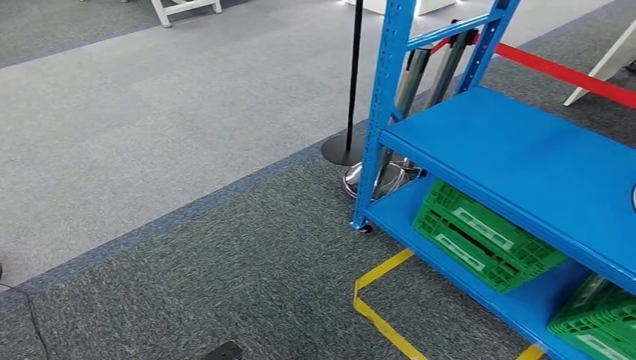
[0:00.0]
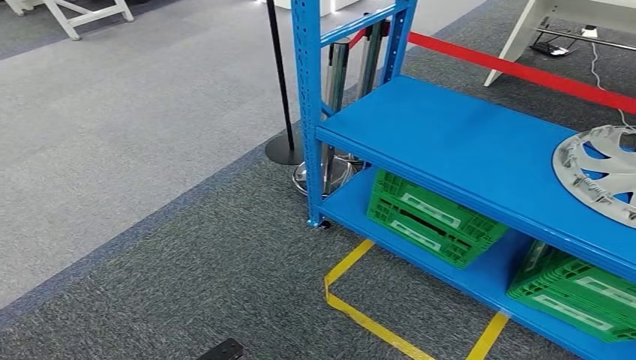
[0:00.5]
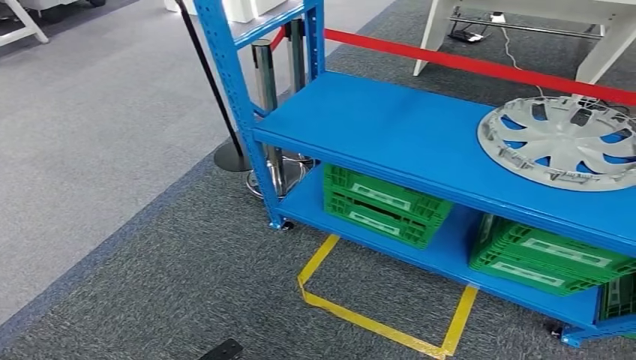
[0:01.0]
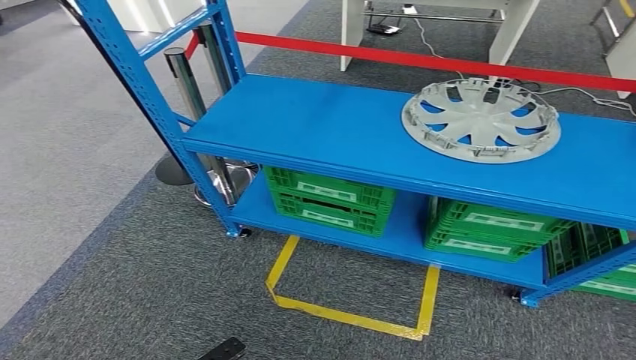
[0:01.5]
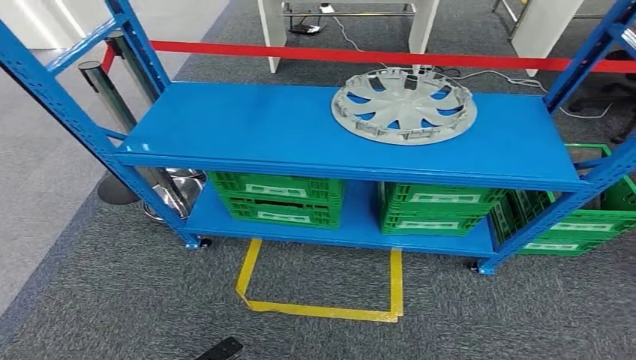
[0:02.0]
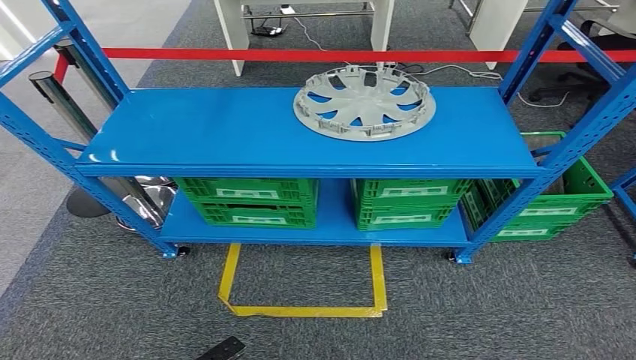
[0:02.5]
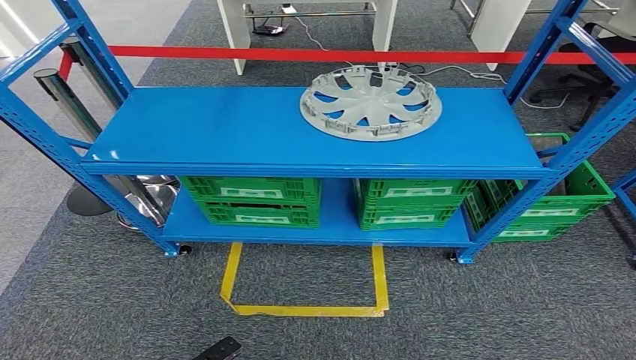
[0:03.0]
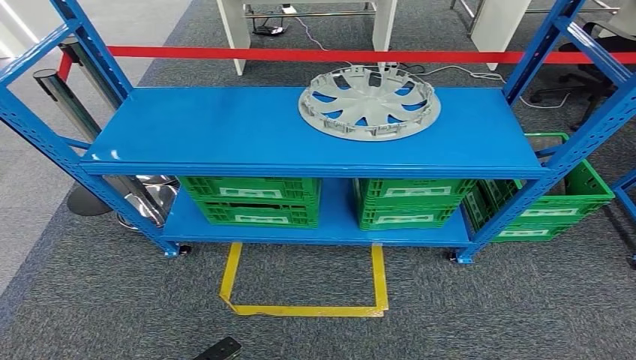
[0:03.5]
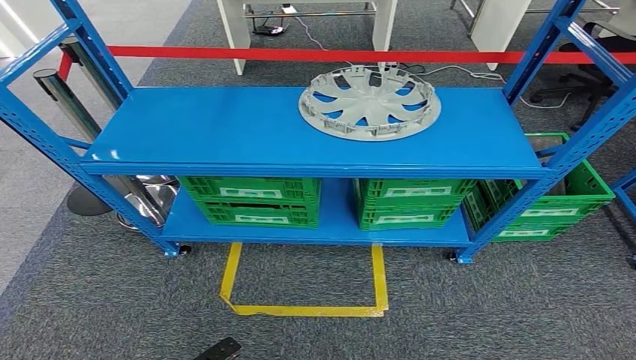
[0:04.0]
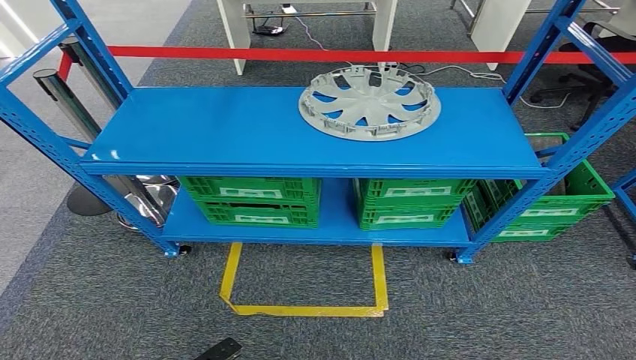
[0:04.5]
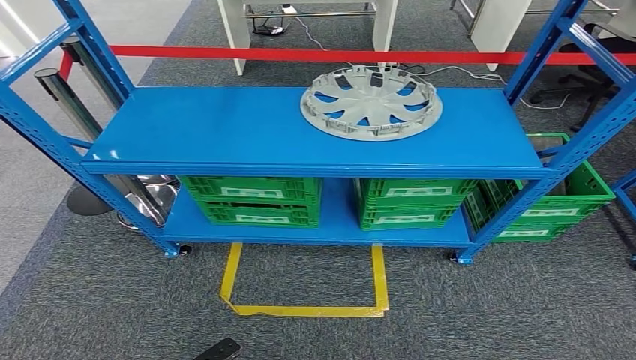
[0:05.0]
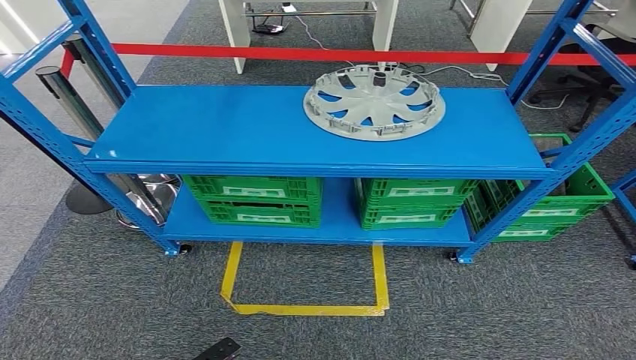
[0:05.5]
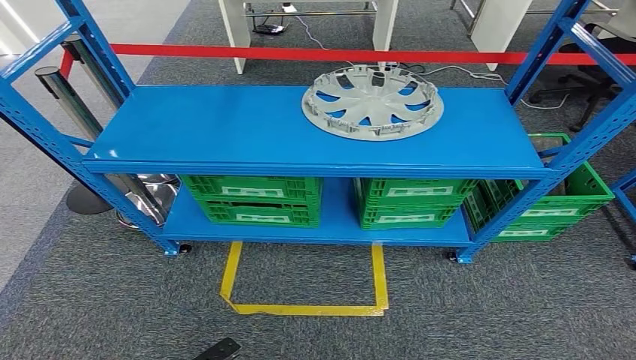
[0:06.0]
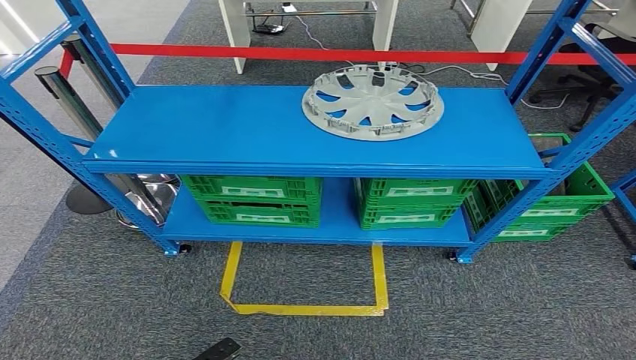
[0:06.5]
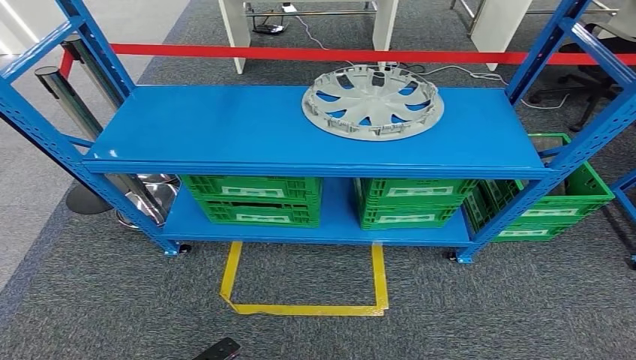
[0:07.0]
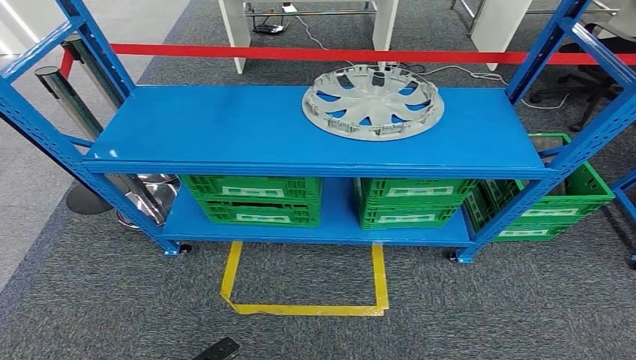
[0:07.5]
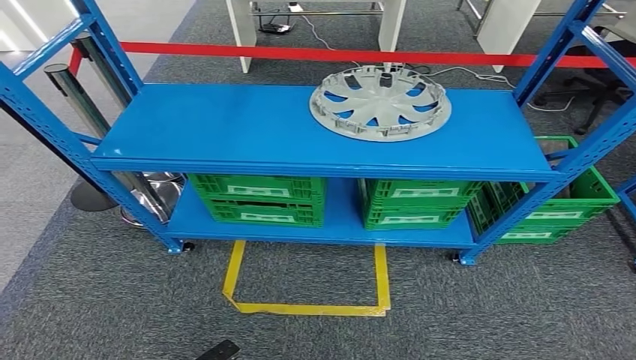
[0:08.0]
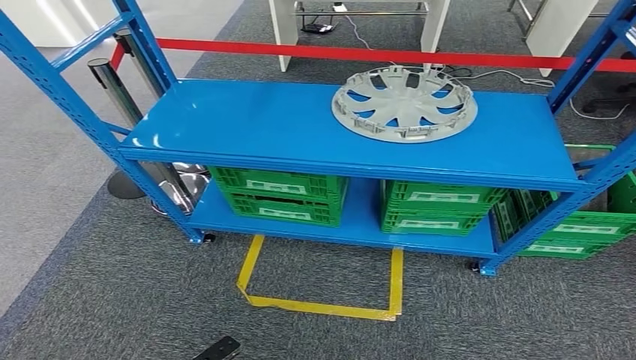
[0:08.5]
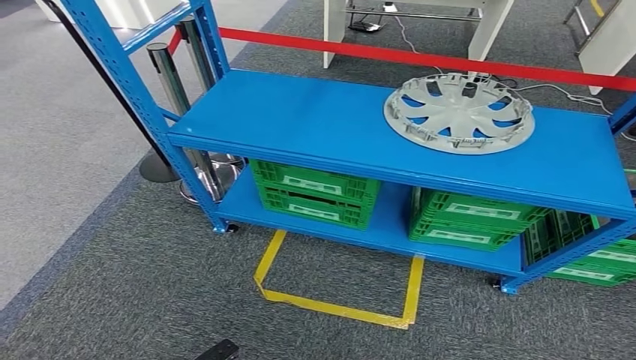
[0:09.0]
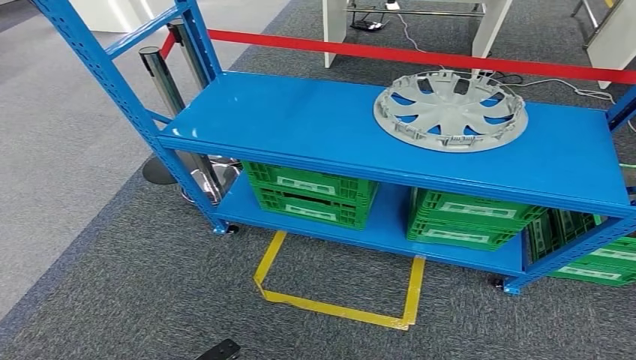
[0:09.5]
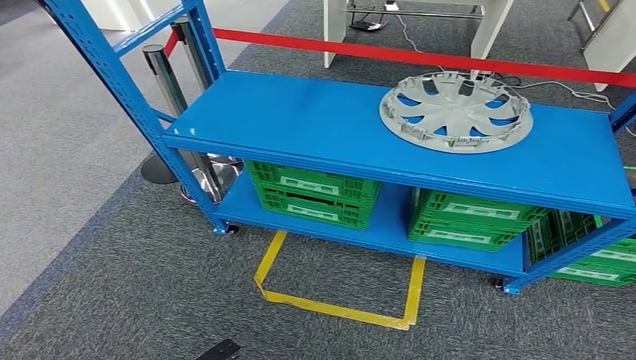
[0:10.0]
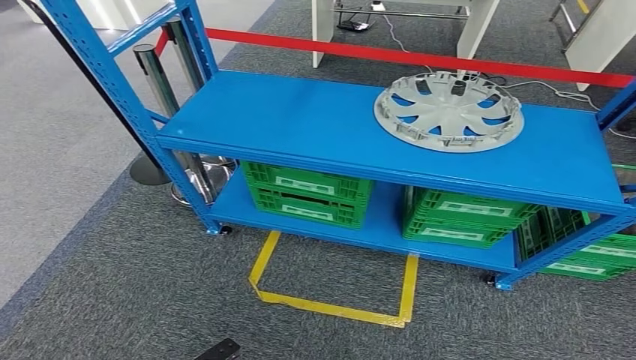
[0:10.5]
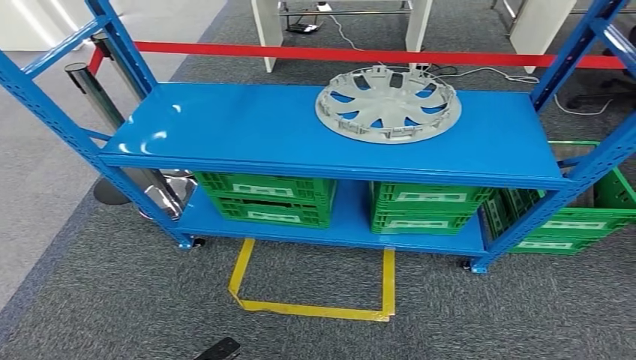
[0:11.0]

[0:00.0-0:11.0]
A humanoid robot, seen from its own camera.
Step, 0:00.0 to 0:11.0: Return to the initial position at the workbench.
0:03.5 to 0:07.5: Both hands stay put.

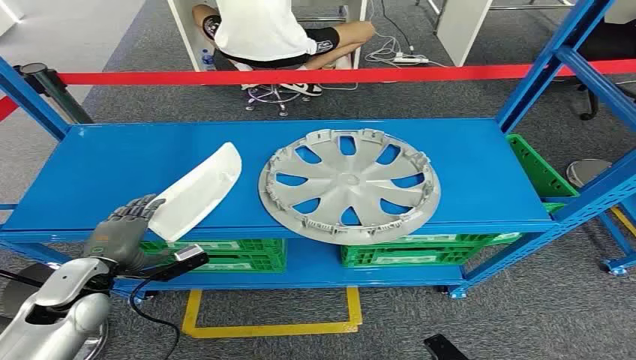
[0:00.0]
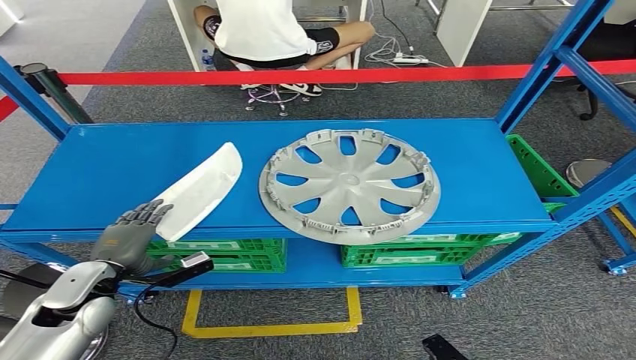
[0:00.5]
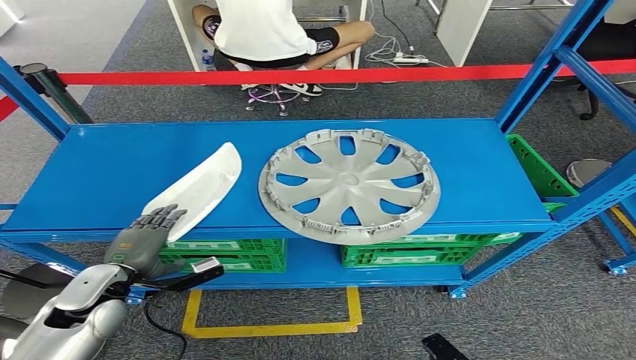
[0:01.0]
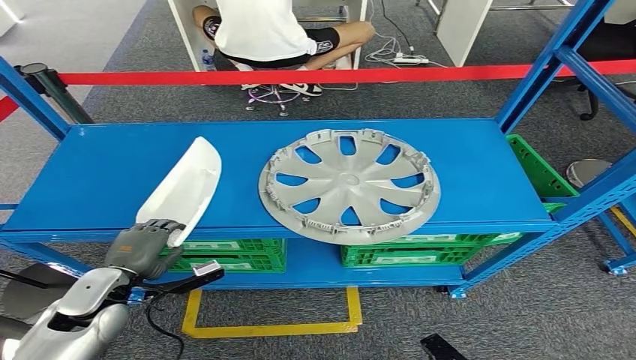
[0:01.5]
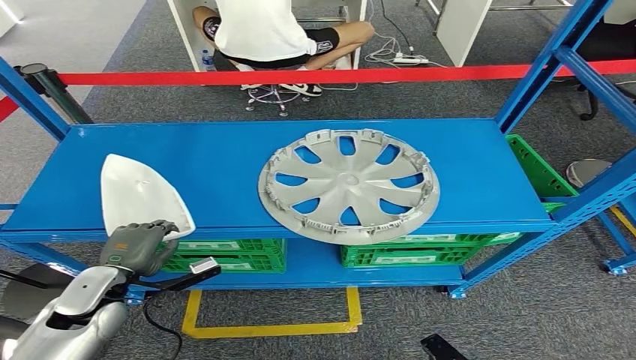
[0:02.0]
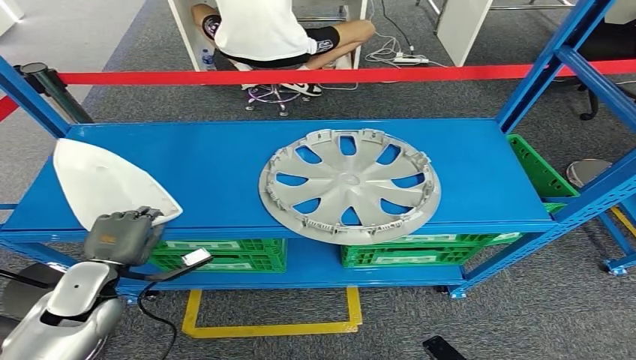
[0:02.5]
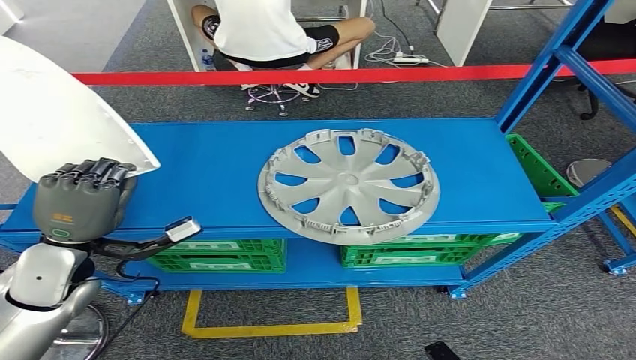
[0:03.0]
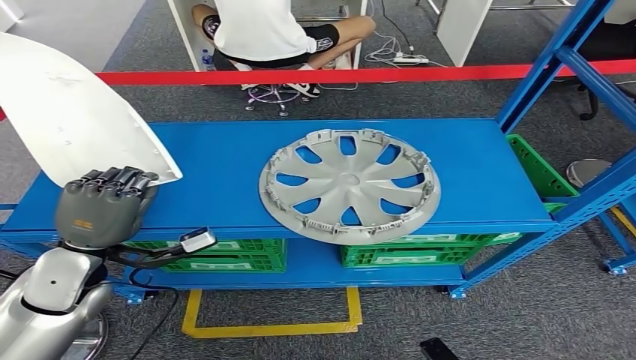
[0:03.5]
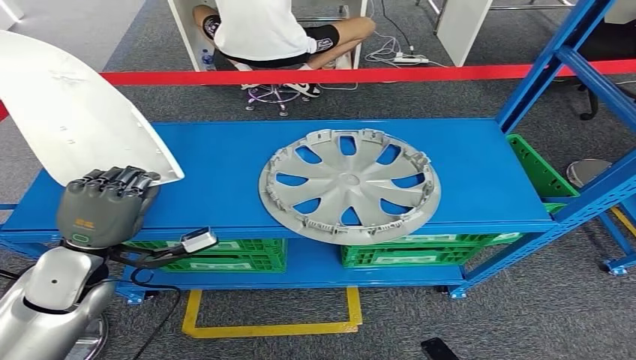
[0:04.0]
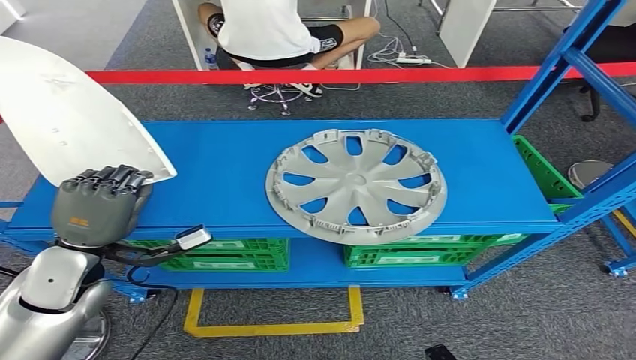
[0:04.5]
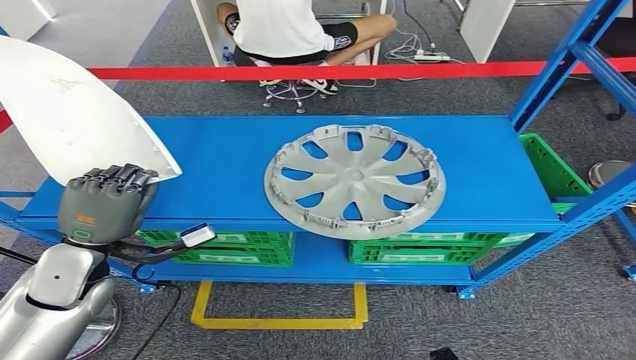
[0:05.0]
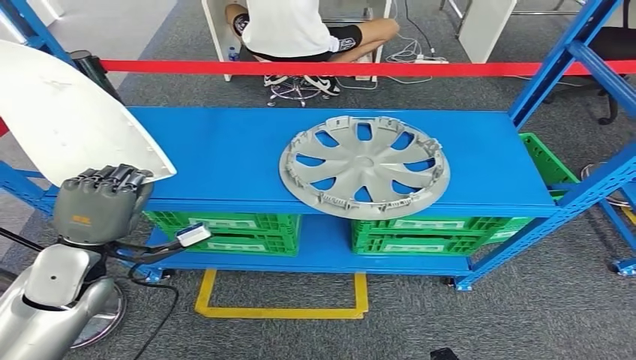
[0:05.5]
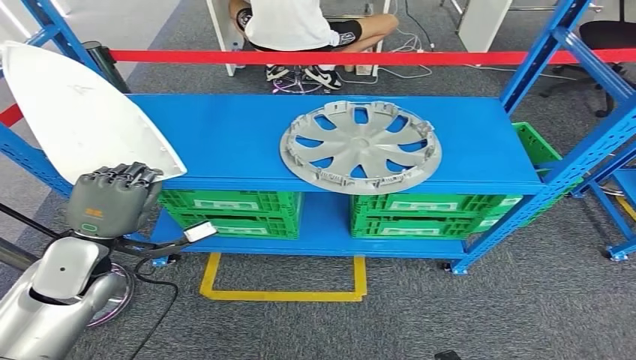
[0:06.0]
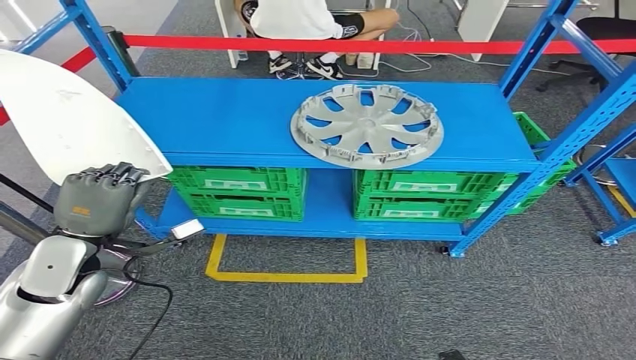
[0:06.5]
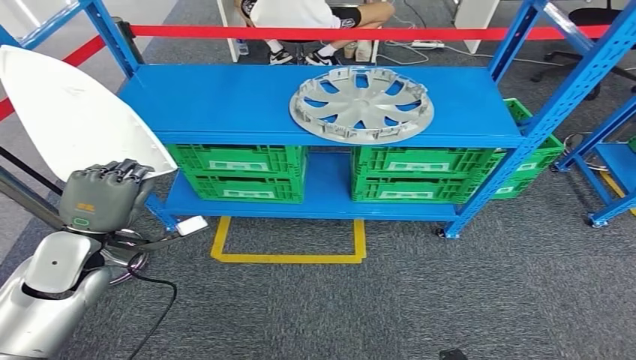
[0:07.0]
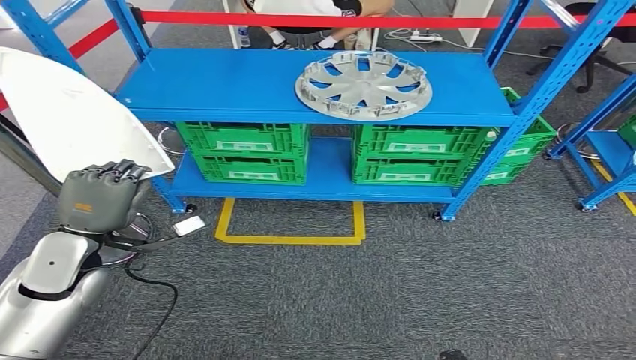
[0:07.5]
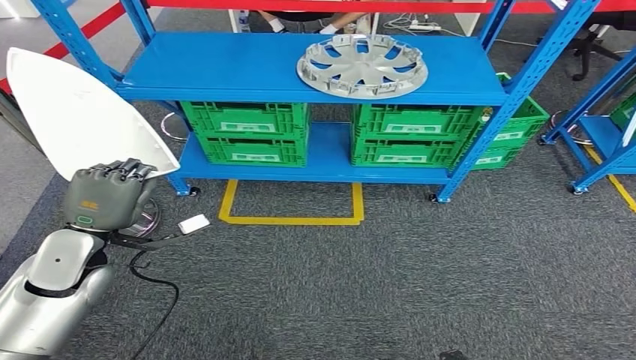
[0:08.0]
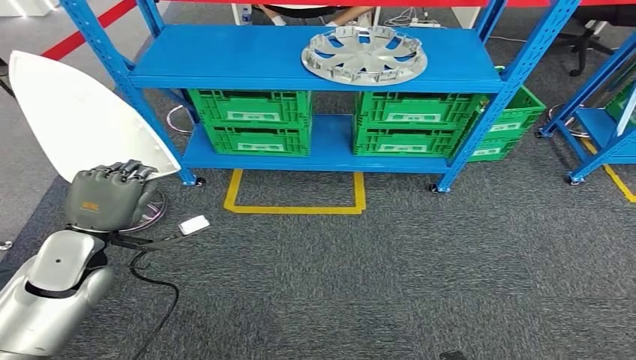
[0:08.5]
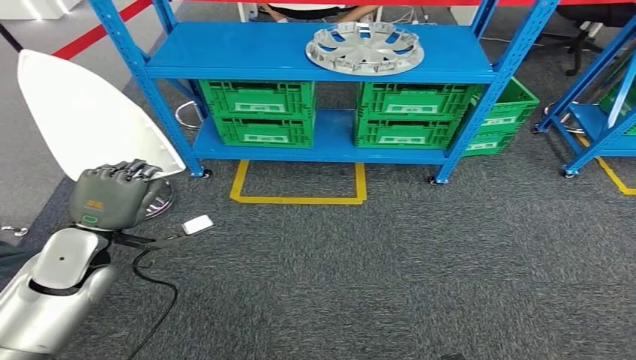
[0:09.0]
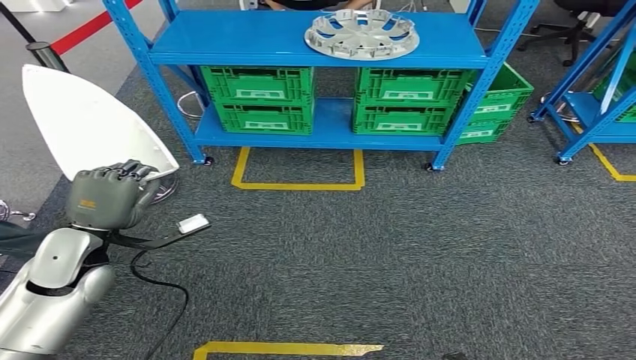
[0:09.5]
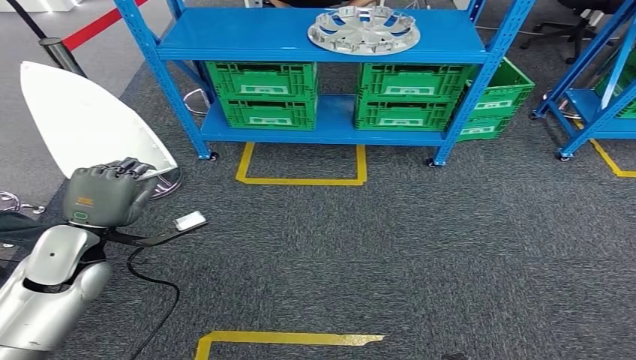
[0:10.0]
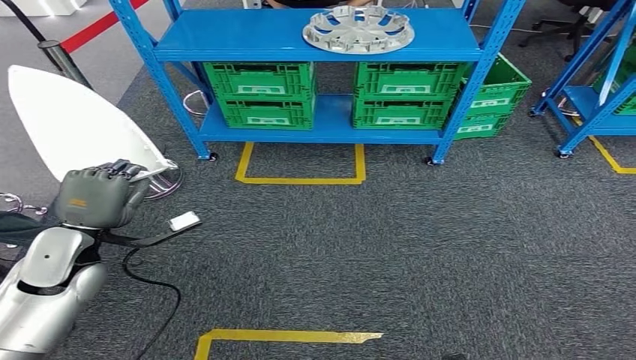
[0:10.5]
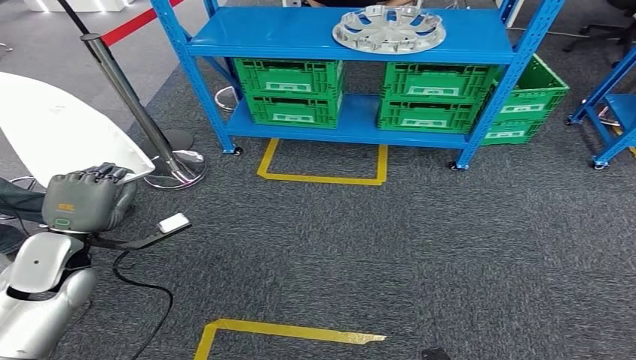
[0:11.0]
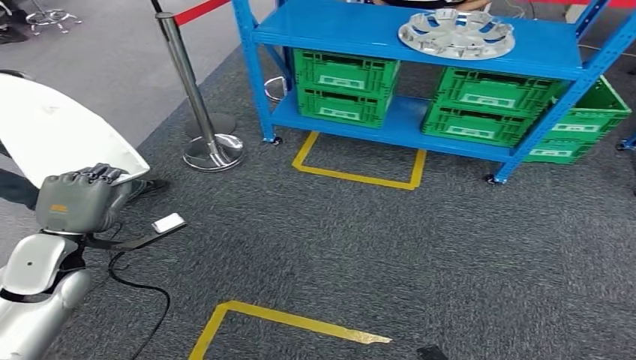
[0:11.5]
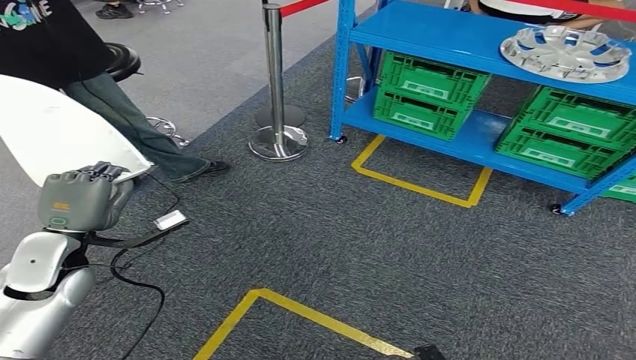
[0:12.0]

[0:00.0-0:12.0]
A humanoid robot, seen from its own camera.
Step, 0:00.0 to 0:03.5: Pick up the small component from the shelf.
0:02.0 to 0:04.0: The left hand heads upward, covering roughly 10 cm.
